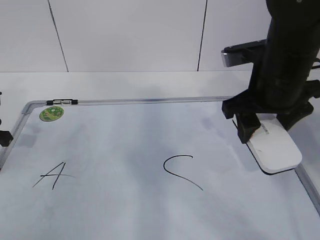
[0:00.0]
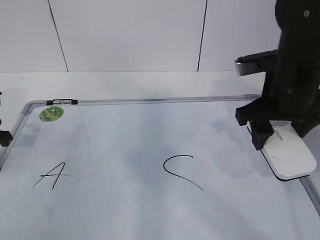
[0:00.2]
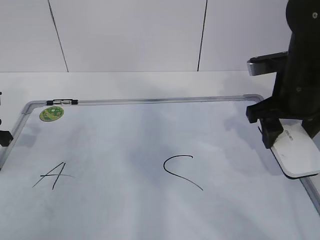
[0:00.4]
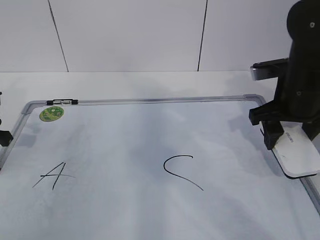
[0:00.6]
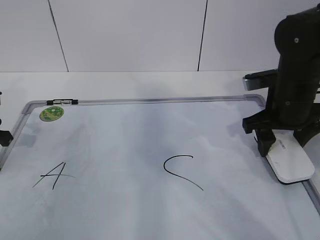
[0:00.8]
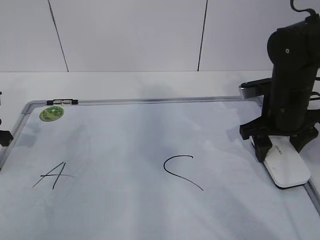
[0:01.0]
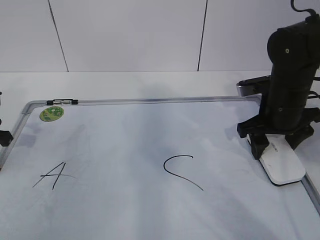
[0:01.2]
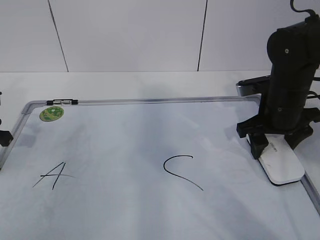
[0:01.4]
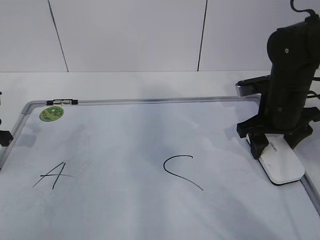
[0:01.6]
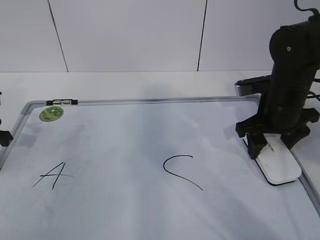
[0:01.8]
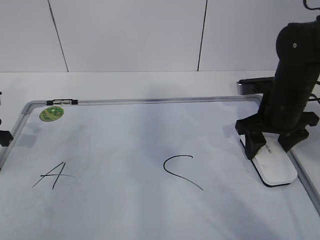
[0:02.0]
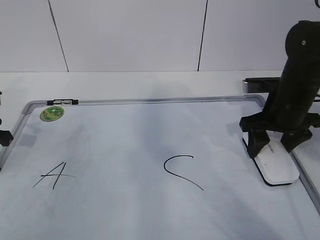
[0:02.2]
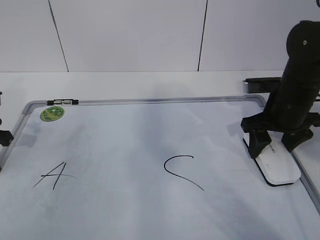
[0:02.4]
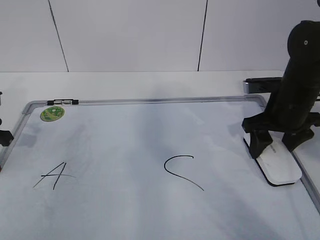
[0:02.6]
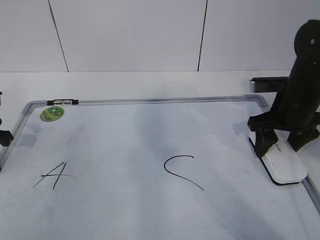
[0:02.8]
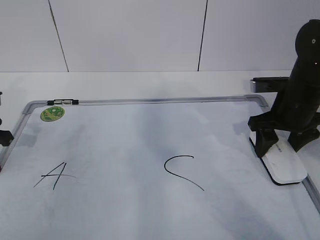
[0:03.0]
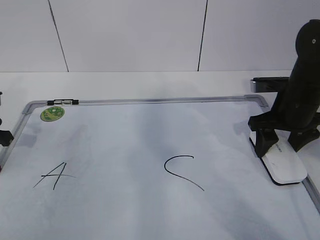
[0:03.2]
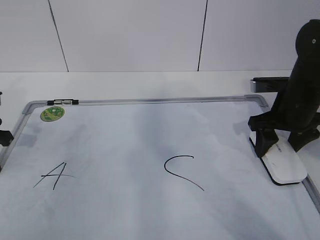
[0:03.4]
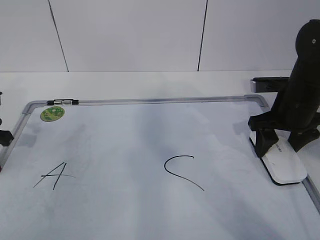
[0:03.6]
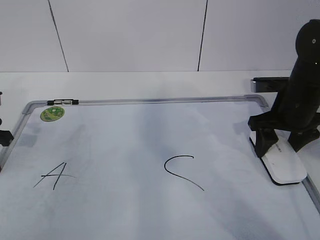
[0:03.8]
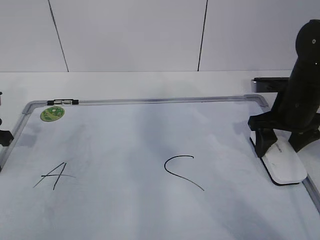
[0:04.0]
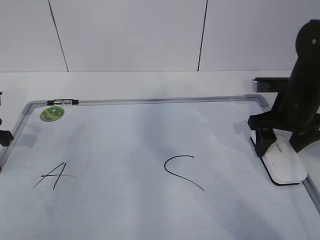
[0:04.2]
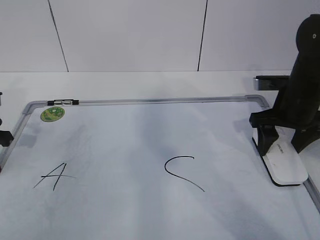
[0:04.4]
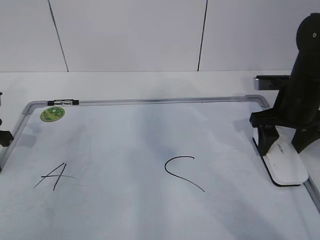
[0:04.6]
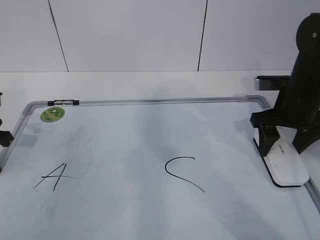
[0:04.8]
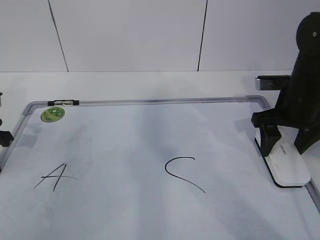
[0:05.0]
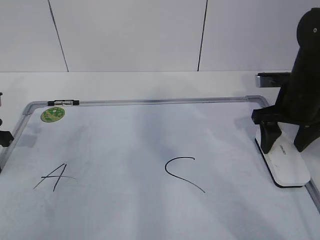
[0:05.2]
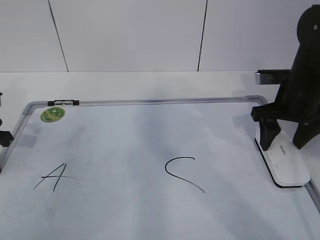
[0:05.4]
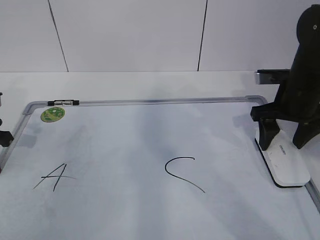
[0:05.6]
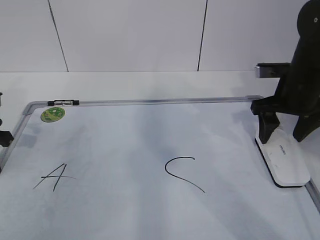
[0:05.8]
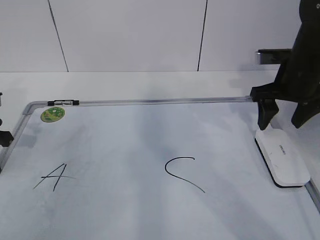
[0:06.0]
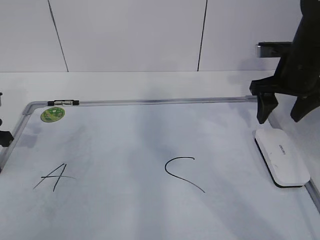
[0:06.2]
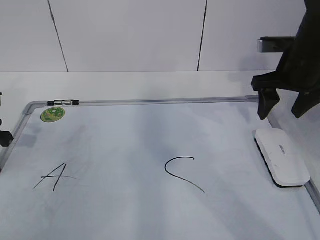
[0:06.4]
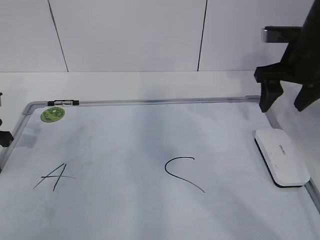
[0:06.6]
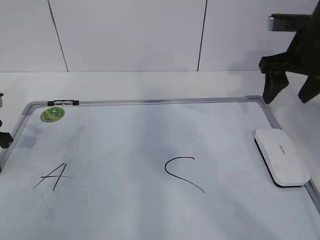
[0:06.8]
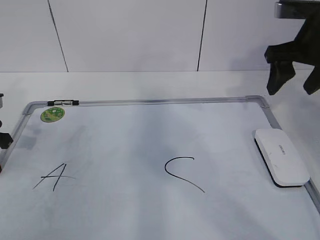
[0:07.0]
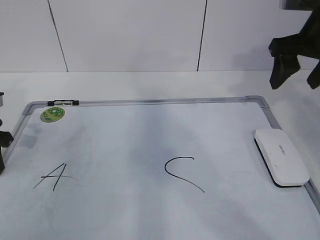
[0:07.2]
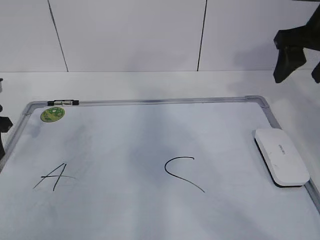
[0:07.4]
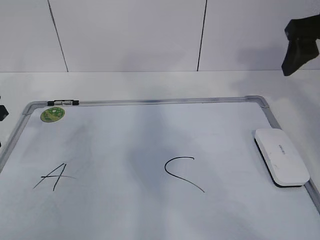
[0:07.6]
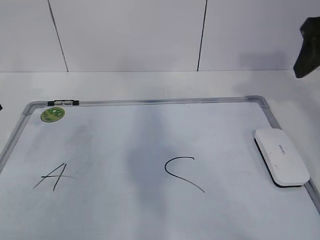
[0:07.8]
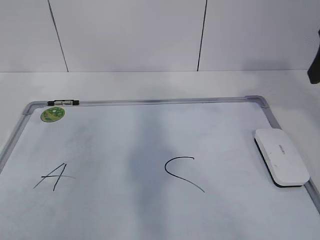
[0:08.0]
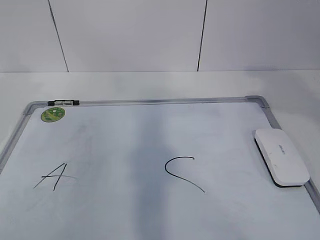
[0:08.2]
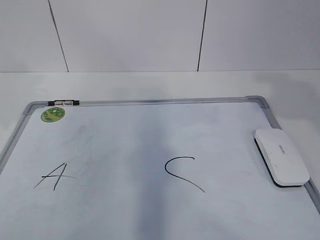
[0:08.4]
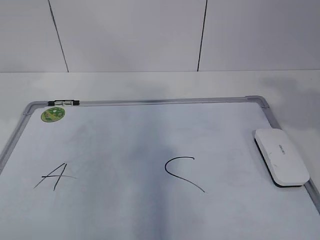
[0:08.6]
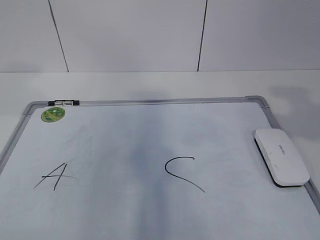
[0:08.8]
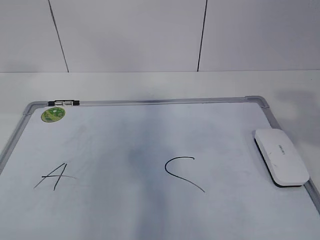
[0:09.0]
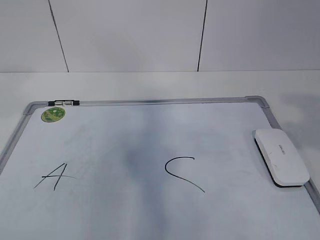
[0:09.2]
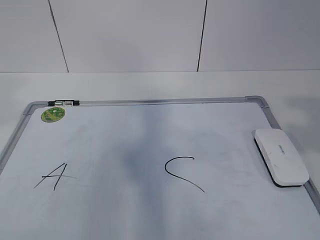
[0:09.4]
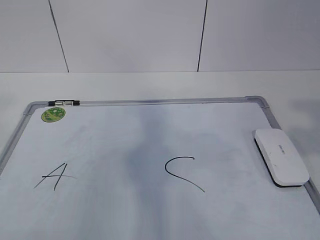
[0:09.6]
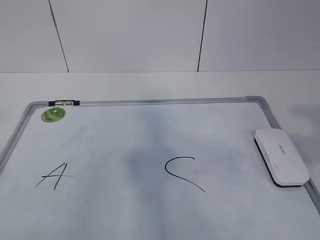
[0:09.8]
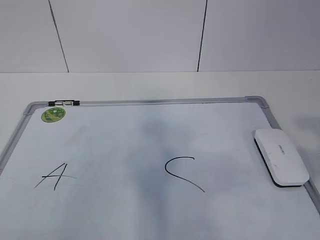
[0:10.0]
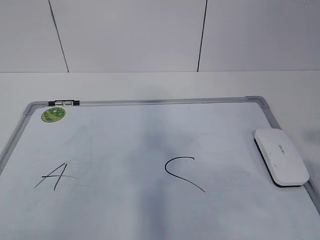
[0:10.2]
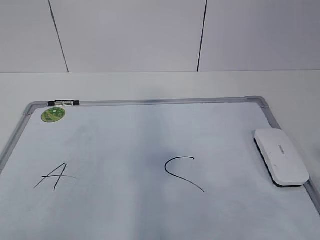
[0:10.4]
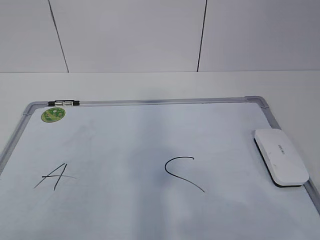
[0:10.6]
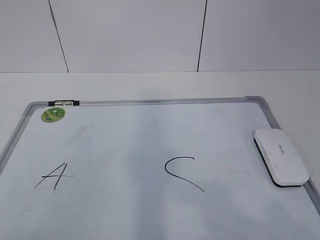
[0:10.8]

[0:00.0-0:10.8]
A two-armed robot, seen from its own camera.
Task of the whole recording: pick up the eraser on the blackboard and erase the letter "B".
0:00.0 to 0:01.6: The right gripper heads downward, covering some 10 cm.
0:01.6 to 0:03.0: There are only small adjustments of the grippers.
0:03.0 to 0:04.6: Both grippers stay about where they are.
0:04.6 to 0:06.2: The right gripper ends up approximately 5 cm from where it was.
0:06.2 to 0:07.8: The left gripper is displaced upward by some 5 cm, and opens up. Meanwhile the right gripper shifts some 15 cm upward and backward.
0:07.8 to 0:09.2: The left gripper shifts about 25 cm upward and backward. The right gripper moves backward, about 20 cm.
0:09.2 to 0:10.8: Both grippers move backward and downward, roughly 20 cm.

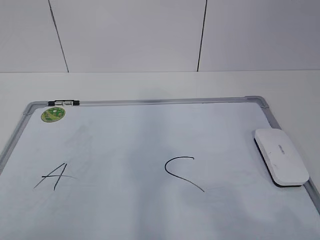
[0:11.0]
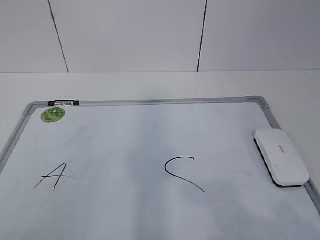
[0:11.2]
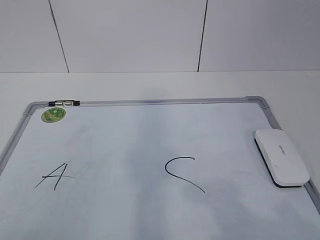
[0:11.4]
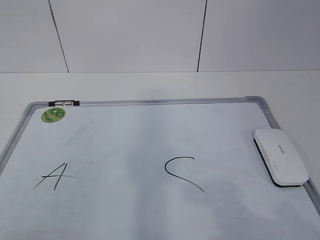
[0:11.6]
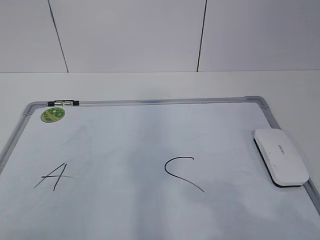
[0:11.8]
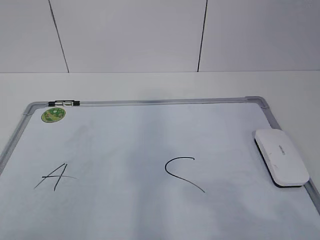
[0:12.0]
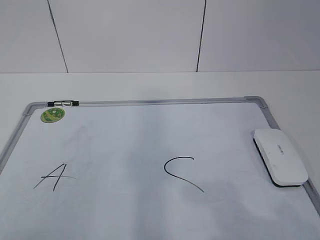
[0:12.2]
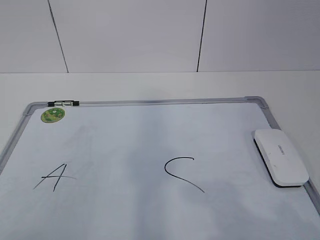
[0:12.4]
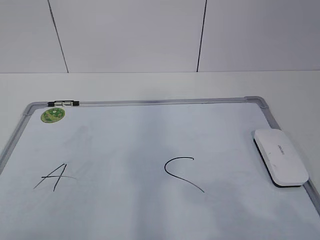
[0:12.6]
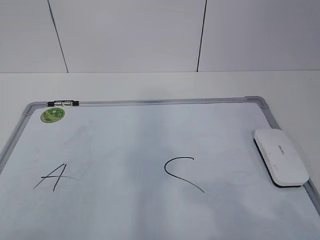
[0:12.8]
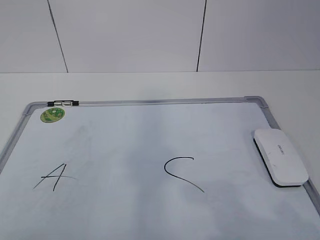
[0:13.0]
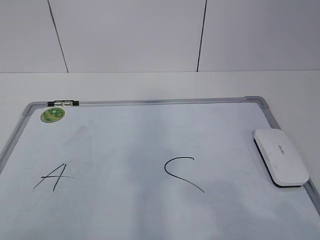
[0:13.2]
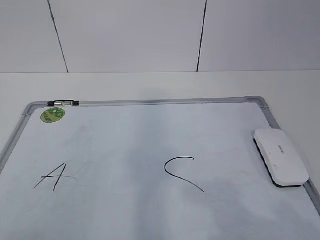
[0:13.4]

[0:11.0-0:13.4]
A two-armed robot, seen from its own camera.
Task of the whole recording: pick up the eraser on the blackboard and erase the letter "B".
0:12.2 to 0:13.4: Both grippers stay about where they are.
